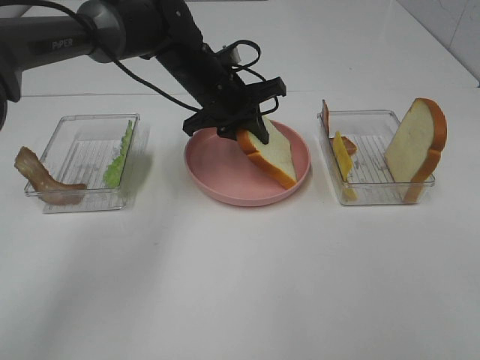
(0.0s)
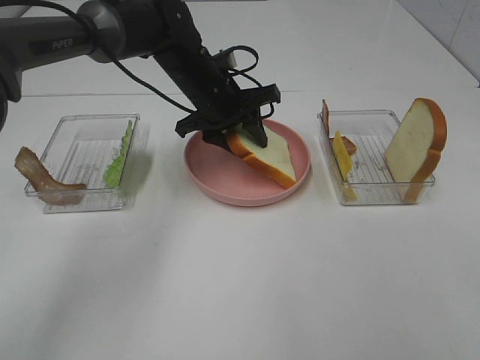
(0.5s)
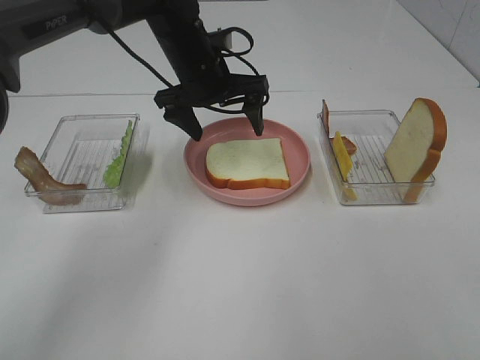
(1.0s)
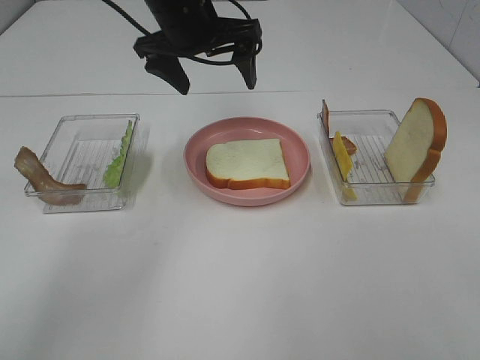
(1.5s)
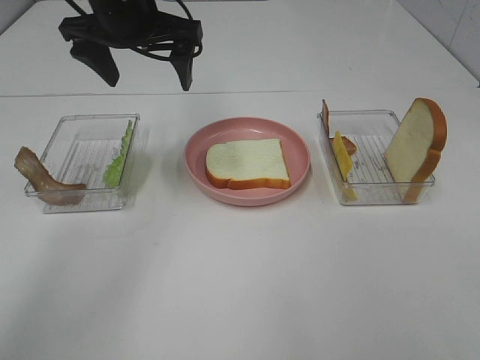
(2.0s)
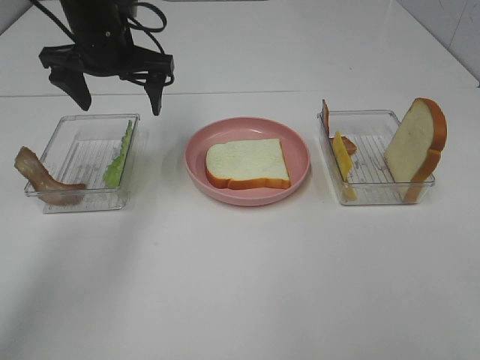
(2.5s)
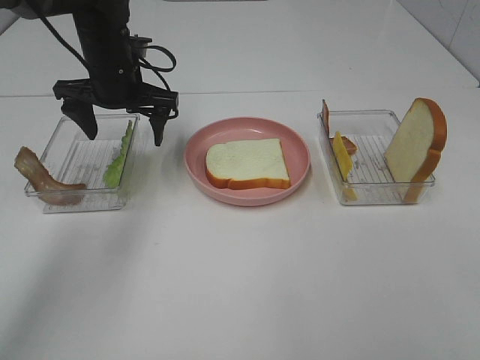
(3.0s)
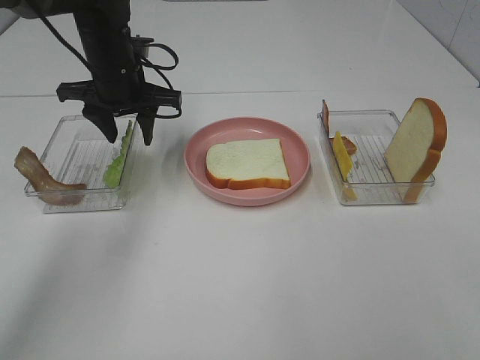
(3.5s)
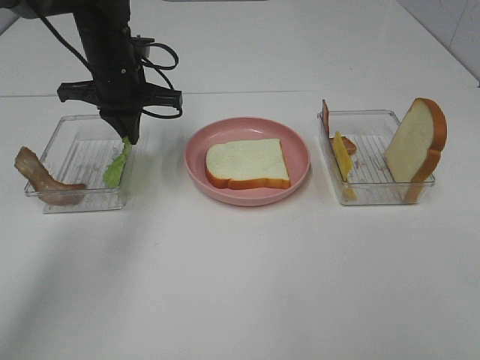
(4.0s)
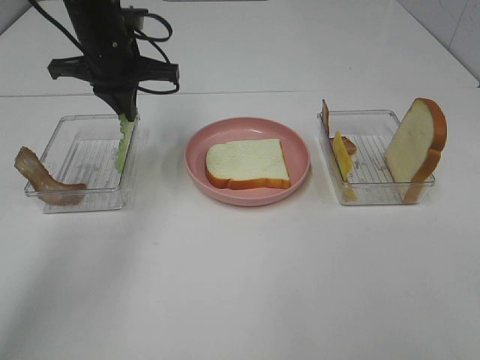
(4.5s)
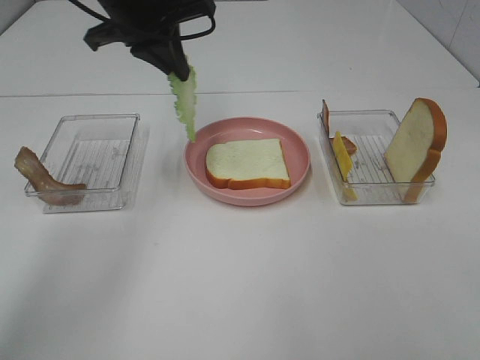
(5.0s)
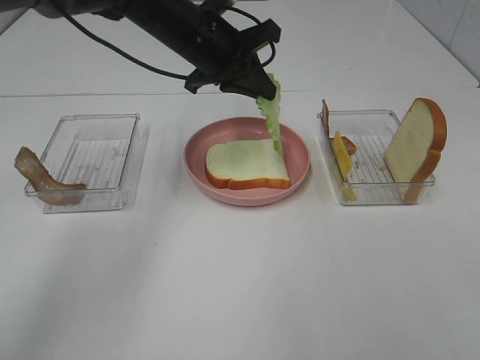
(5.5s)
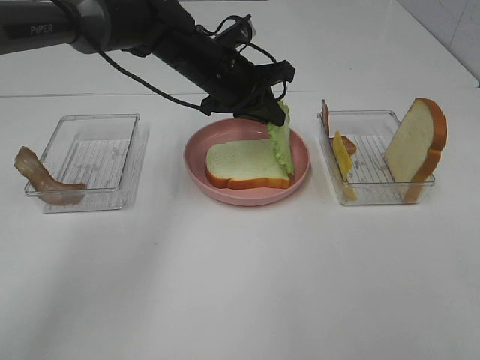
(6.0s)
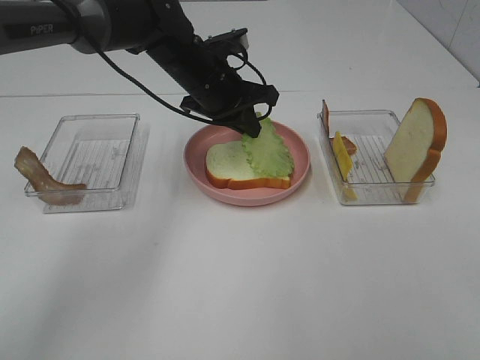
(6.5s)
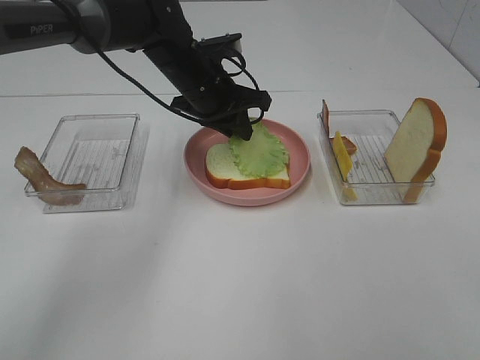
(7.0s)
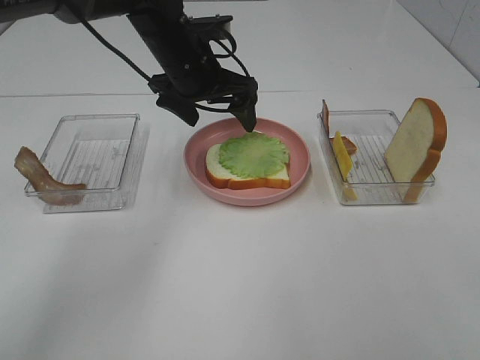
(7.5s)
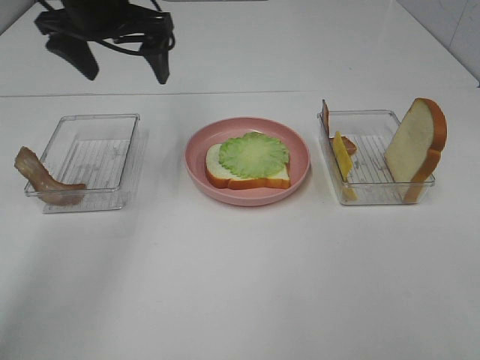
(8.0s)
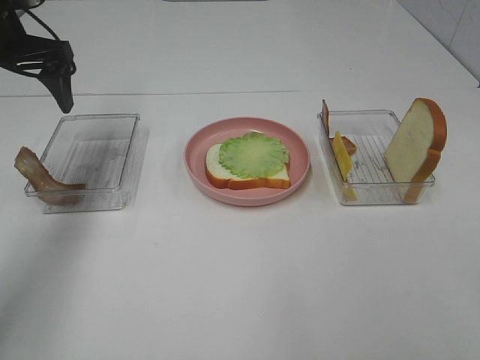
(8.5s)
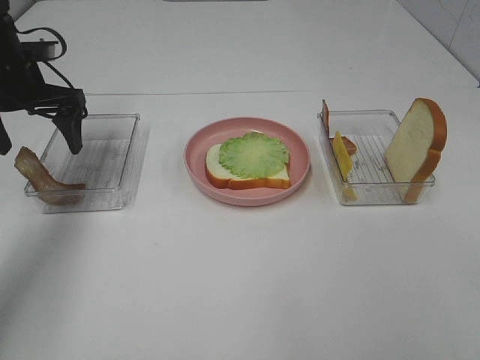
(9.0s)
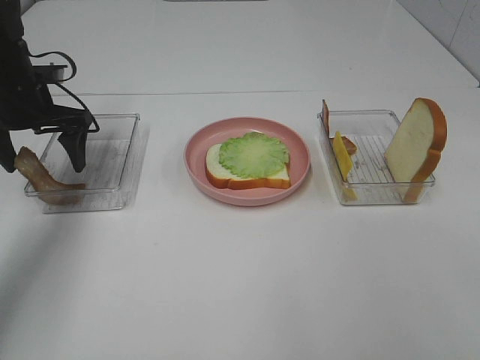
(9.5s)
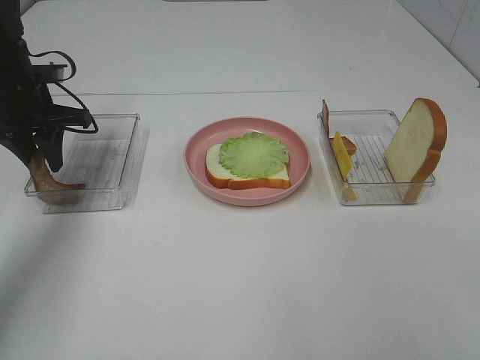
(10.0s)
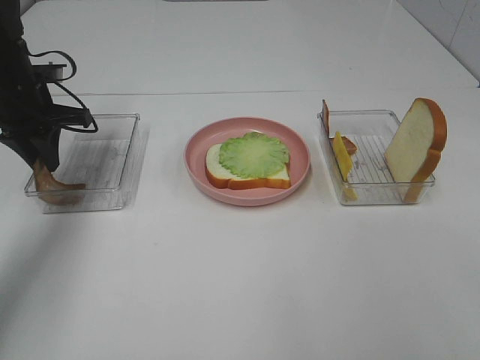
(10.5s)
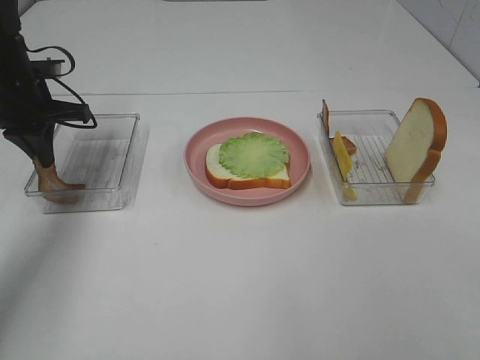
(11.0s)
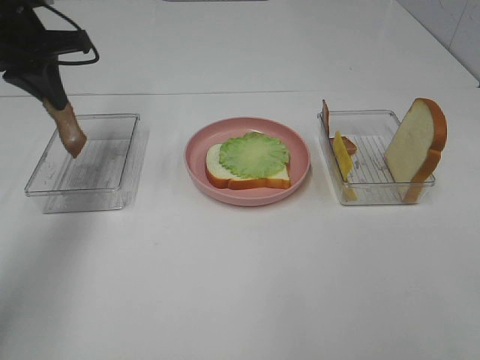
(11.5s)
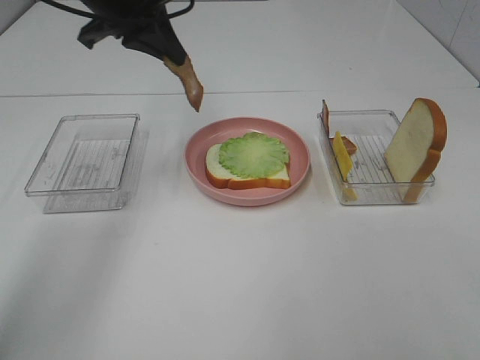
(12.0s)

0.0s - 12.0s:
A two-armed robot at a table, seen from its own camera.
Task of the whole recording: Make sandwiches.
Step, 1.5s - 4.0s: Left hand:grab the lettuce slice.
Step, 4.5s - 7.0s: Left hand:place the lettuce slice on the bread slice.
Step, 7.5s - 11.0s: Left hand:grab the bacon.
0.0s - 2.0s: The left gripper goes approximately 15 cm upward and to the left, and opens up.
2.0s - 4.0s: The left gripper goes about 10 cm downward, and closes.
4.0s - 6.0s: The left gripper travels to the right by roughly 10 cm.
6.0s - 8.0s: The left gripper travels to the left and upward by roughly 15 cm, and opens its fingers.
8.0s - 10.0s: The left gripper goes approximately 15 cm to the left and downward, and closes up.
10.0s - 12.0s: The left gripper heads to the right and upward, covering approximately 20 cm.

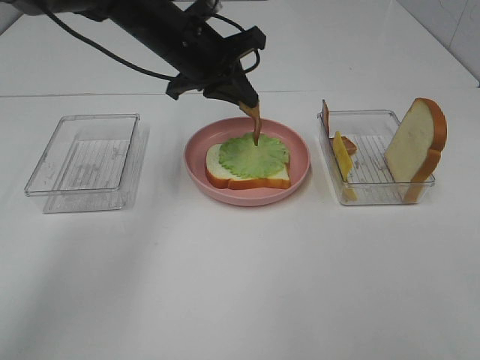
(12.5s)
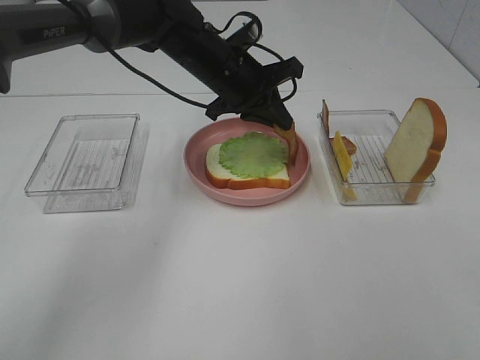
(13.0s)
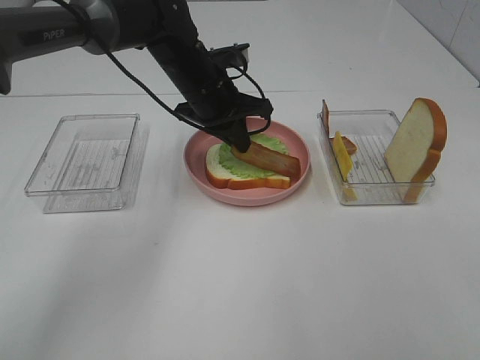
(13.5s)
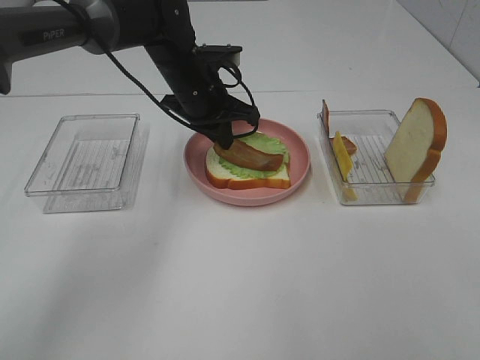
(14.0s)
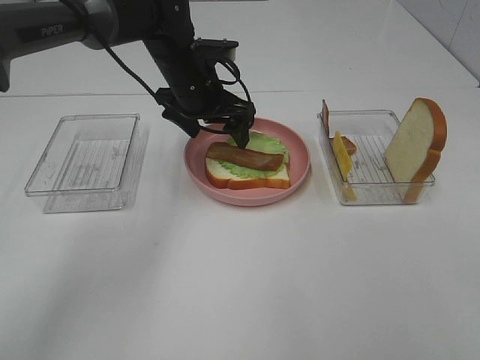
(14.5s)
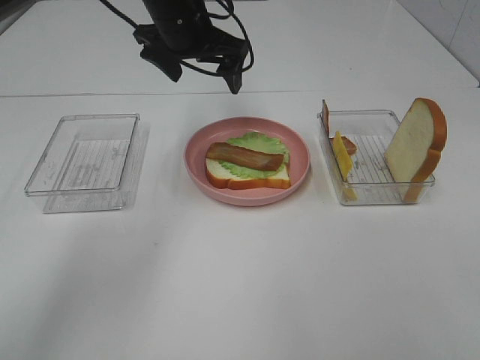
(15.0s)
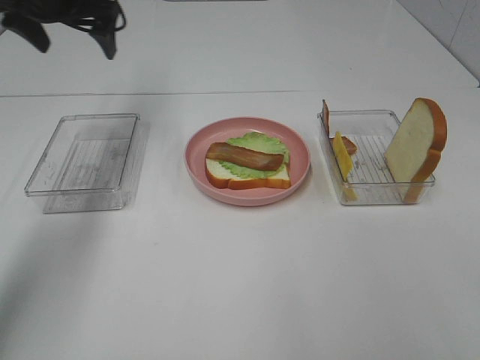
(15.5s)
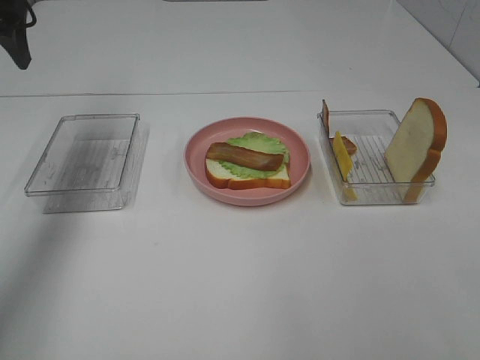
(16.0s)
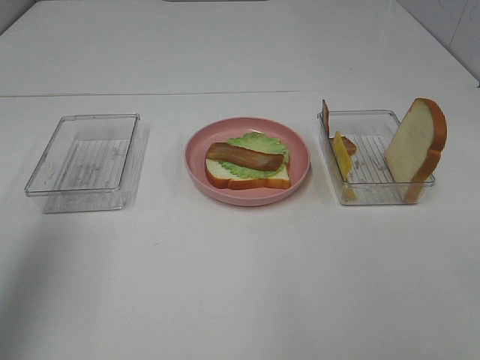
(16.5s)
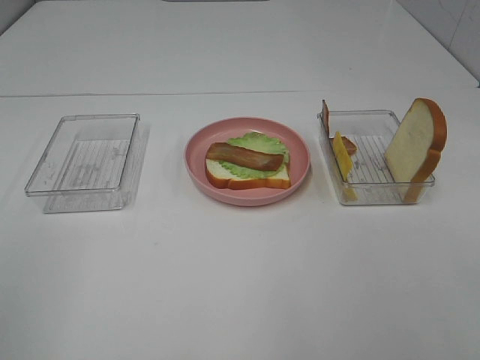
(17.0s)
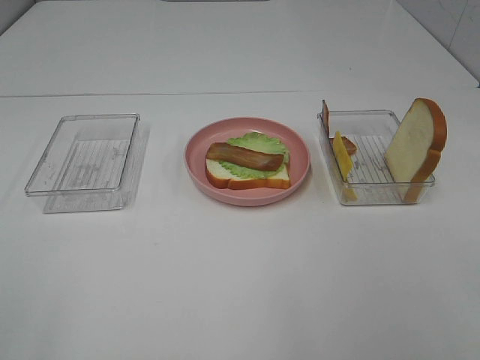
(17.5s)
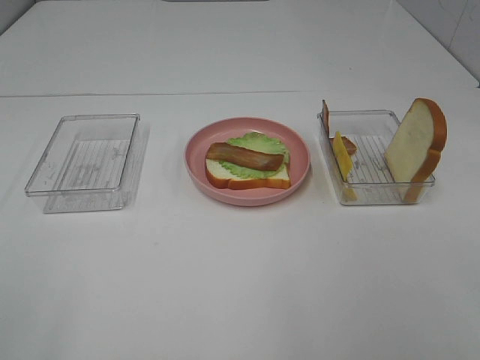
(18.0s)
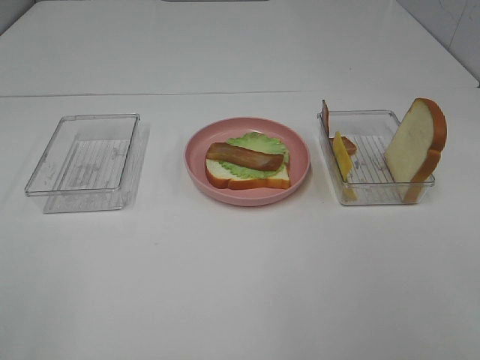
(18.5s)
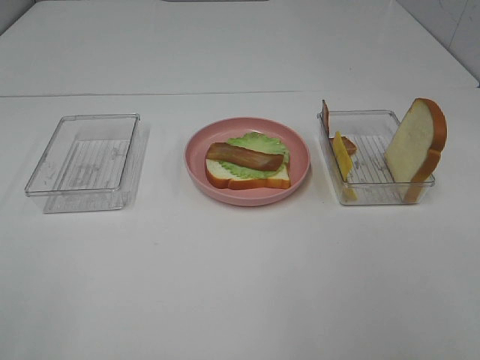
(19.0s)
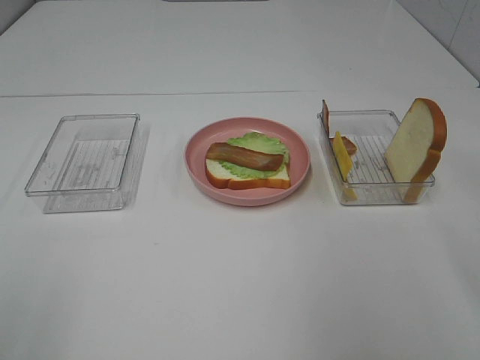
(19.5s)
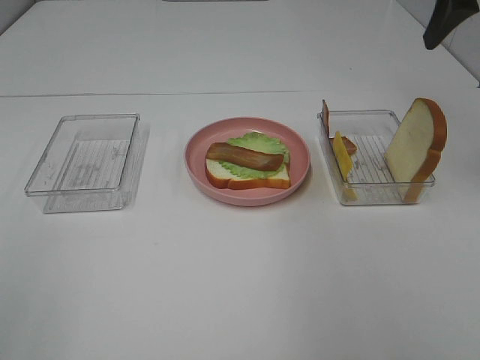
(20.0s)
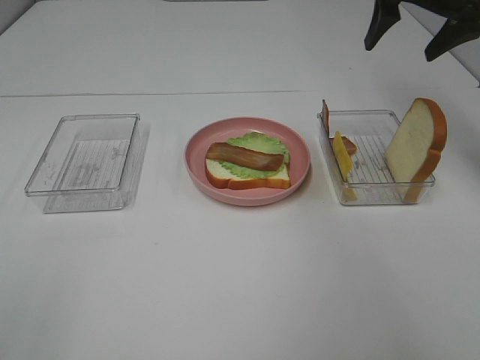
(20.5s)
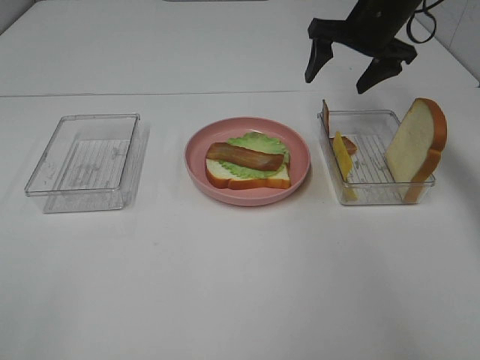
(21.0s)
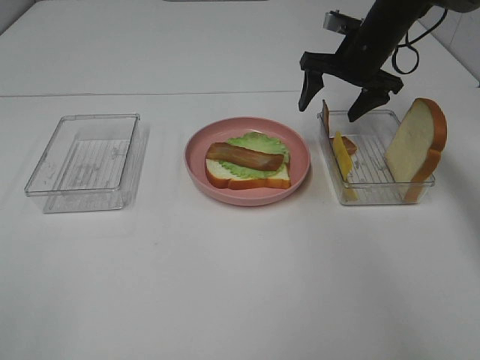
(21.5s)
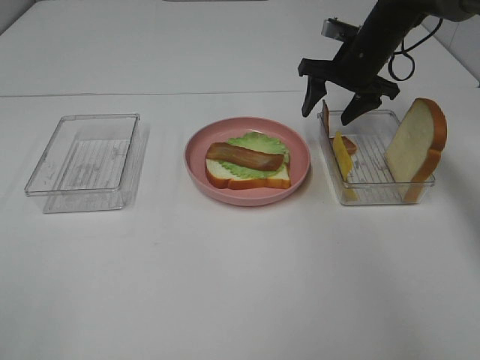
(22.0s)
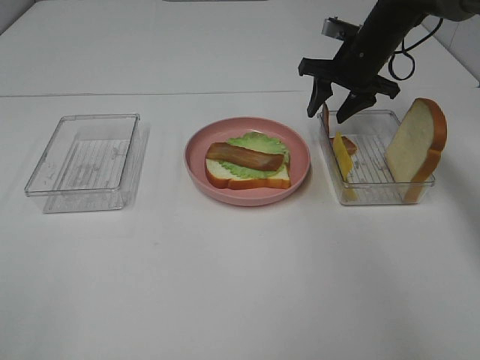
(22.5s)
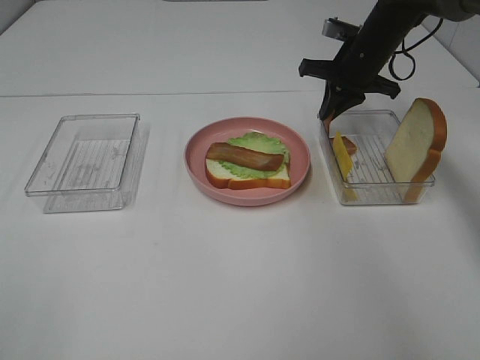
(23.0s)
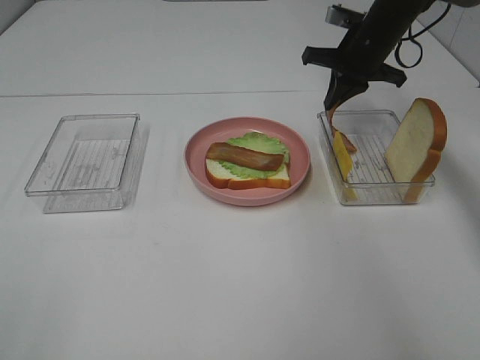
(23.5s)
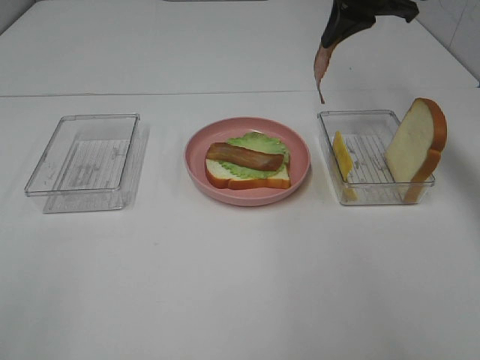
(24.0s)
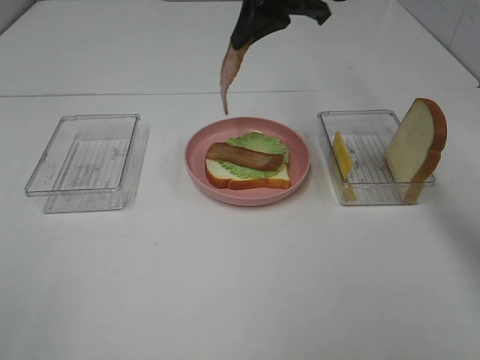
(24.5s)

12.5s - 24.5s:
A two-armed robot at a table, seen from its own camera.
Task of the whole recording: Make sandwiches.
Step, 12.5s - 14.5s: Left hand:place bacon on lettuce slice.
Step, 15.0s - 23.5s: Right hand:grab the bacon.
12.5s - 14.5s: The left gripper shifts by approximately 5 cm, and opens its fingers.
14.5s - 16.5s: The left gripper goes some 40 cm backward, to the left and upward.
16.5s - 18.5s: The left gripper travels backward by some 20 cm.
18.5s - 20.5s: The right gripper moves forward, some 40 cm.
20.5s - 22.5s: The right gripper moves downward, to the left and forward, approximately 15 cm.
22.5s - 24.5s: The right gripper goes some 20 cm upward, to the left and backward, and closes its fingers.

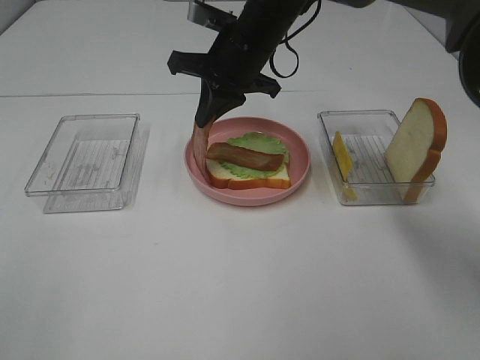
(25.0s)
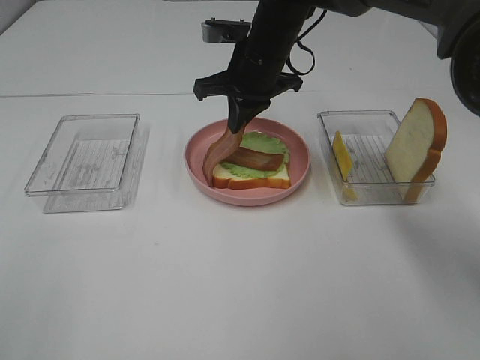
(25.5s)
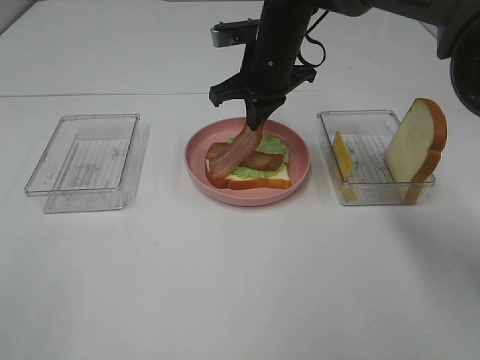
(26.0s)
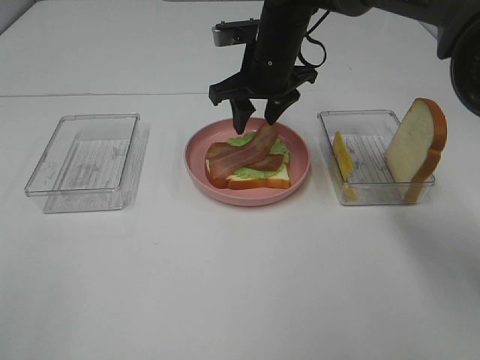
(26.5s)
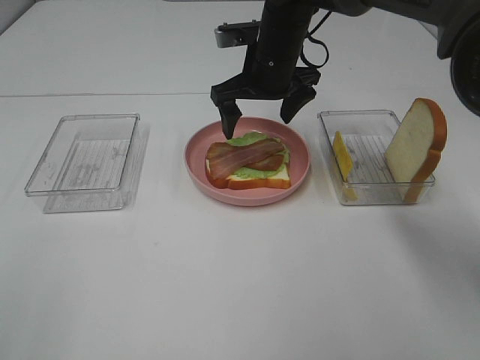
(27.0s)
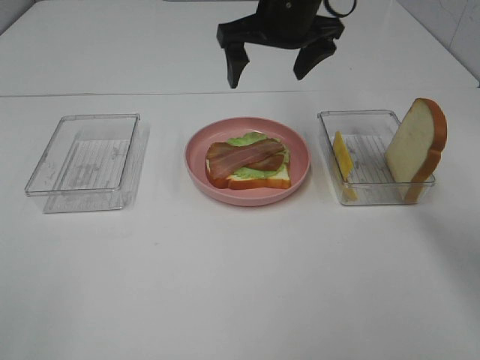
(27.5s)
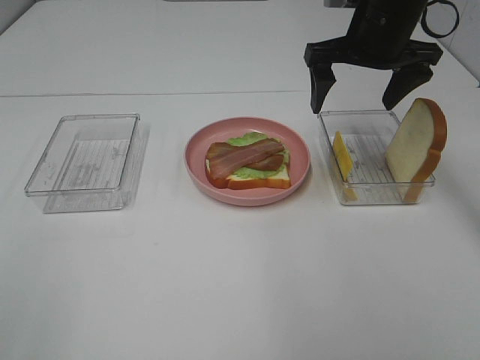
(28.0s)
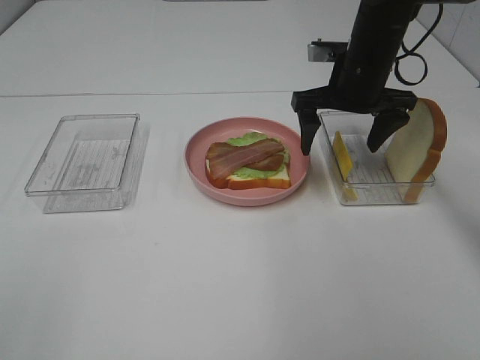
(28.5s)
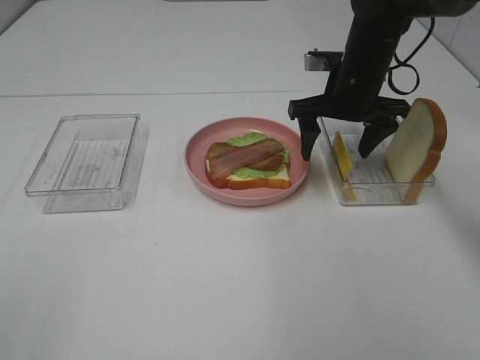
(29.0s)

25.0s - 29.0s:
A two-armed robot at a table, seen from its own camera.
Task of the whole recording: Make sandwiches.
Step, 25.0s - 26.5s: Right hand:place bacon on bacon.
25.0s - 27.0s: The right gripper opens up.
27.0s - 29.0s: The right gripper moves to the right, approximately 10 cm.
